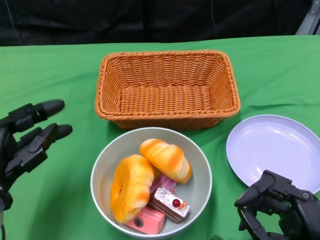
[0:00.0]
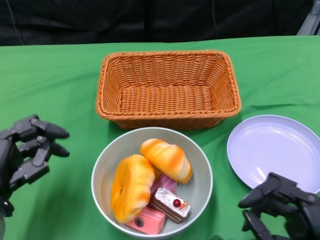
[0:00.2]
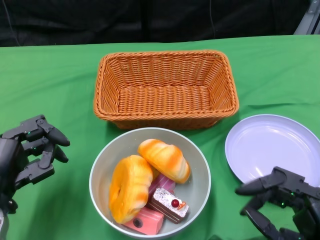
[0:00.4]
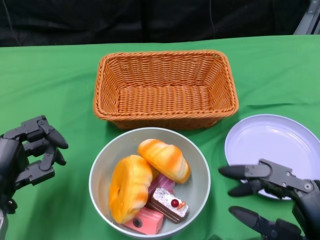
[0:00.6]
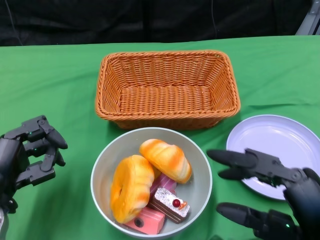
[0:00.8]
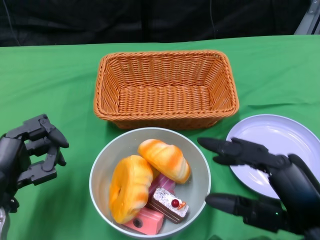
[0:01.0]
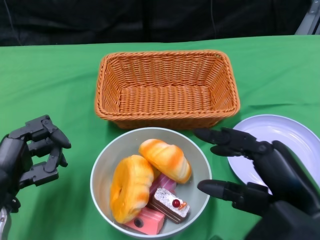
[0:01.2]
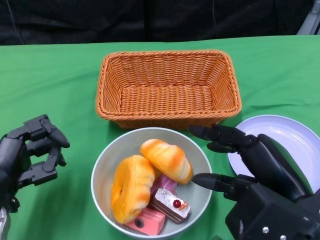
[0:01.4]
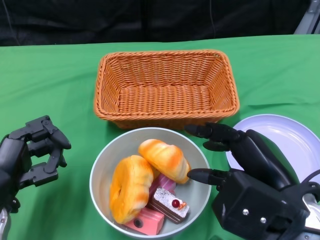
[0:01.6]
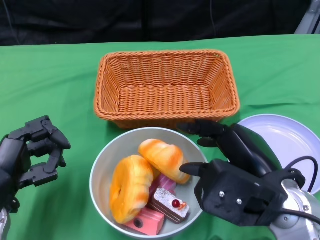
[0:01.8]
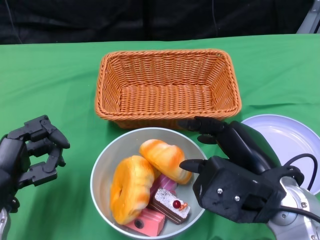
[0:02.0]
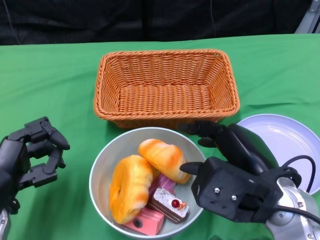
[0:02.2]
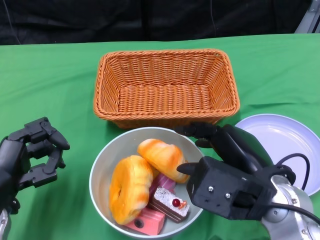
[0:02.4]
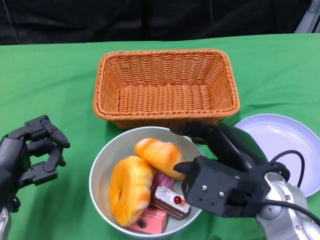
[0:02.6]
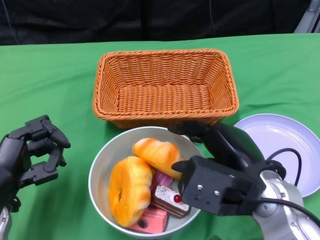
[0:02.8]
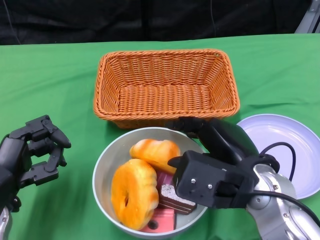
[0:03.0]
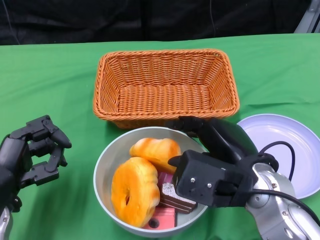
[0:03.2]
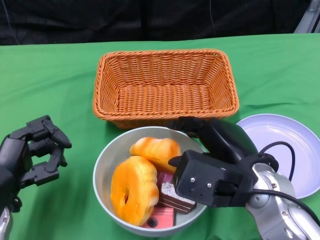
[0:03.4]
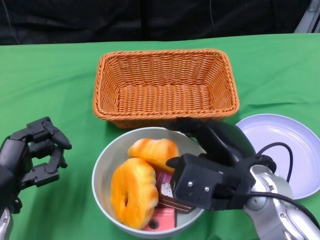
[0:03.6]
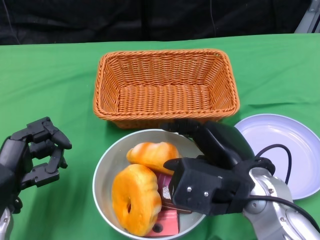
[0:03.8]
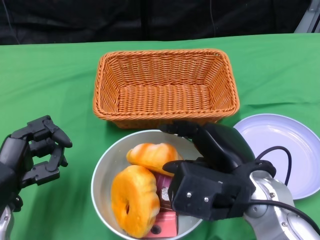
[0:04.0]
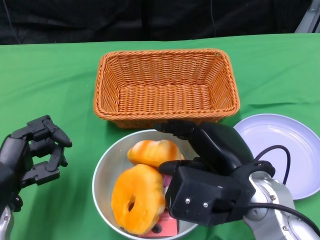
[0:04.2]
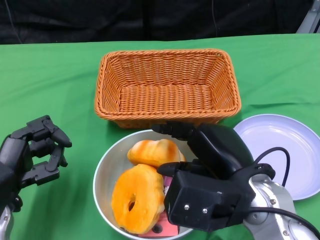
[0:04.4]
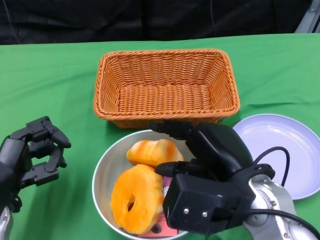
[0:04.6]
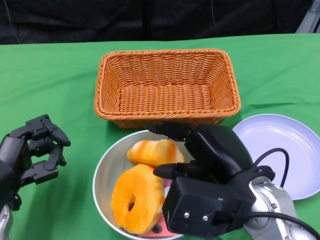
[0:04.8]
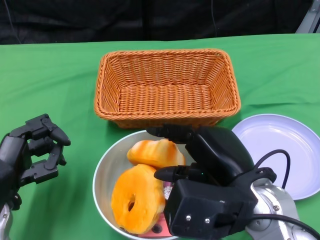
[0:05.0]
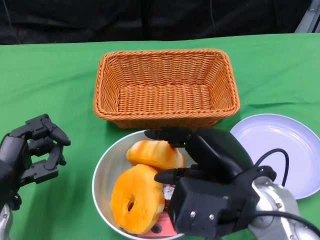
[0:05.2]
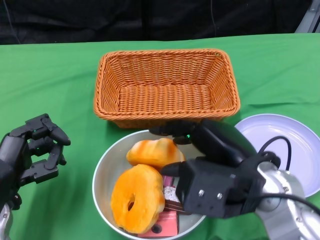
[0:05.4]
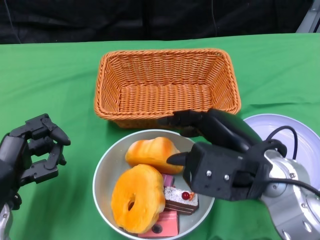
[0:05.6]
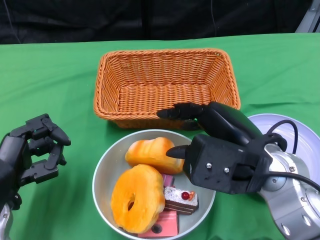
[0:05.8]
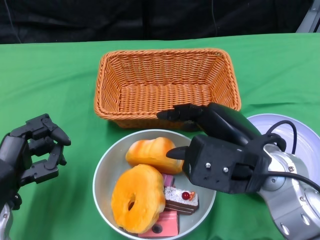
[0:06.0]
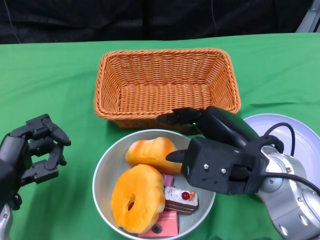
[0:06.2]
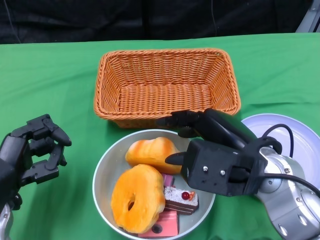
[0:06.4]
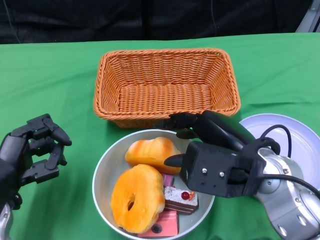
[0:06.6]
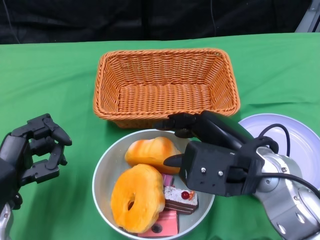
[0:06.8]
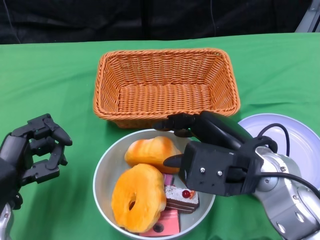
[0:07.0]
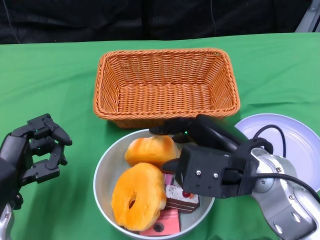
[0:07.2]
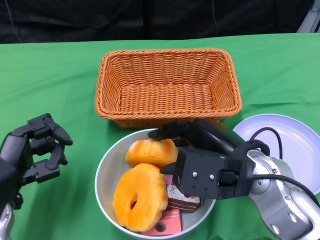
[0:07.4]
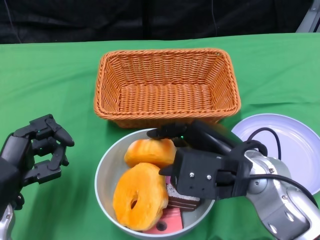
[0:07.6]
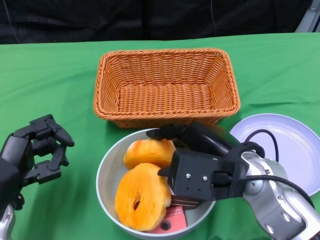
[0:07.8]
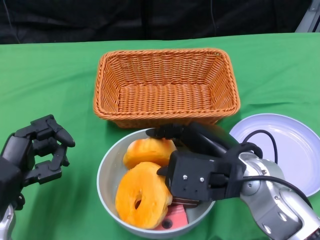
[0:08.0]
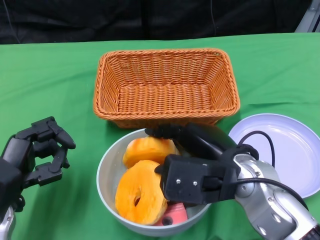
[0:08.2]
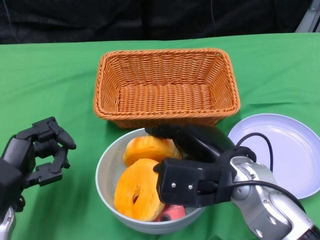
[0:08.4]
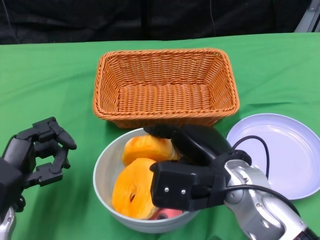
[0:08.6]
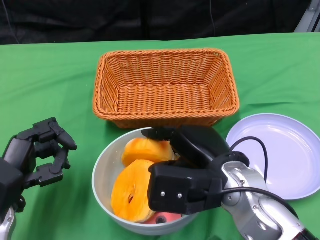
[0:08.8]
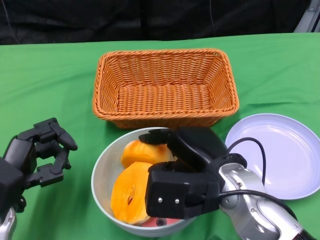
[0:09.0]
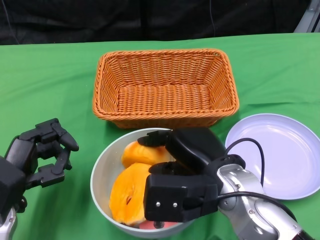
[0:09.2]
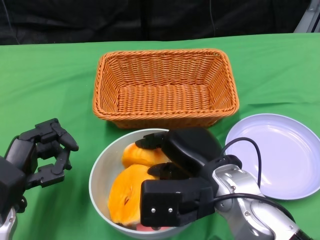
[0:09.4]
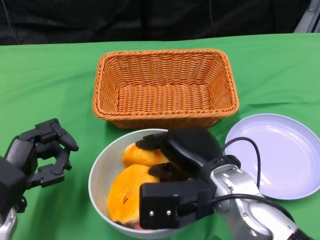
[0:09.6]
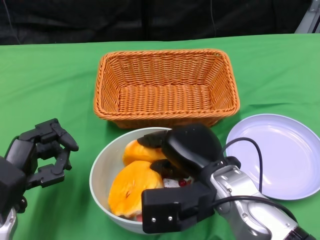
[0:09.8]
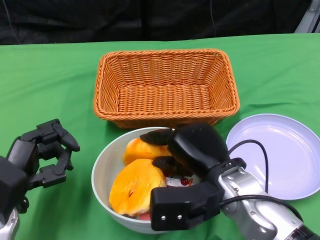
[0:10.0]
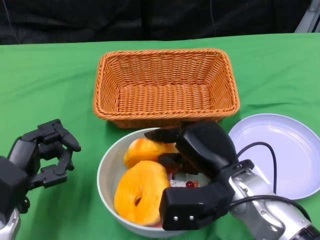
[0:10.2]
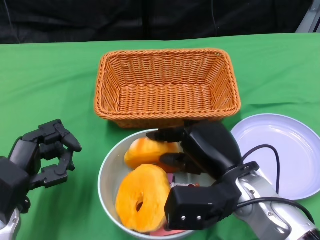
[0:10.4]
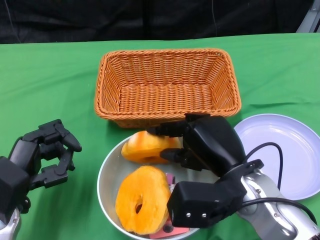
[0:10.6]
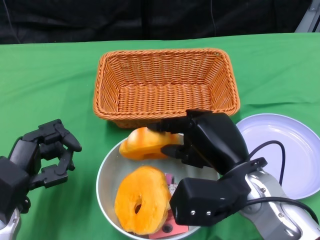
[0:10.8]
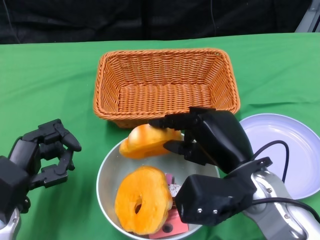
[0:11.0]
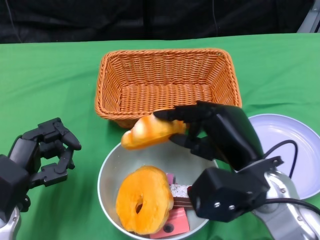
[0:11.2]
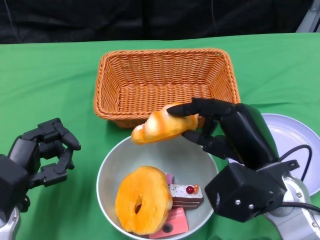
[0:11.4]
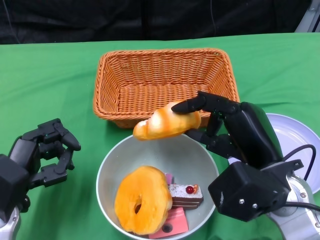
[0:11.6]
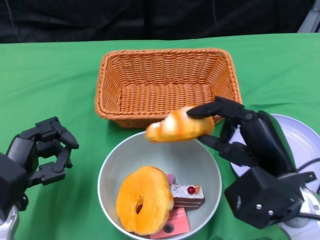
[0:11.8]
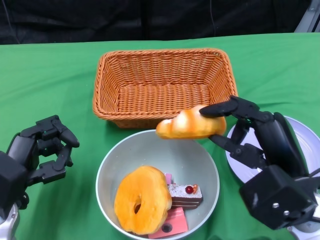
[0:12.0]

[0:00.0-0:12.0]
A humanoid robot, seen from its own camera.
0:00.0 to 0:01.6: The right hand goes about 10 cm upward and forward.
0:01.6 to 0:03.0: The right hand ends up some 5 cm from where it was.
0:03.0 to 0:04.4: There are only small adjustments of the hands.
0:06.0 to 0:07.6: The hands move only a little.
0:10.4 to 0:12.0: The right hand is displaced to the right by about 5 cm.

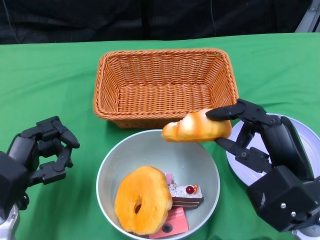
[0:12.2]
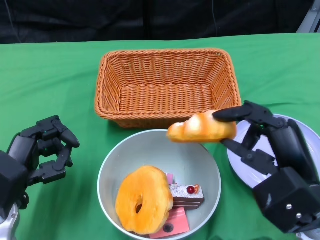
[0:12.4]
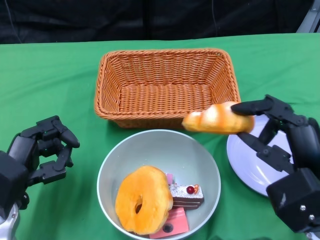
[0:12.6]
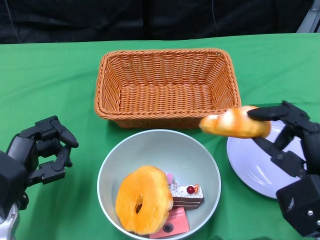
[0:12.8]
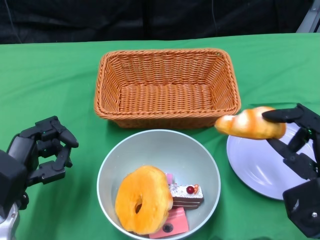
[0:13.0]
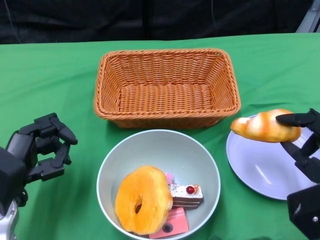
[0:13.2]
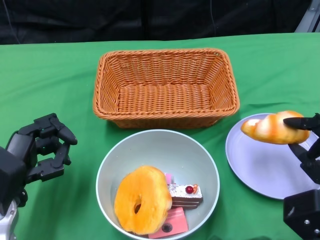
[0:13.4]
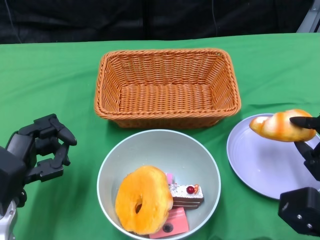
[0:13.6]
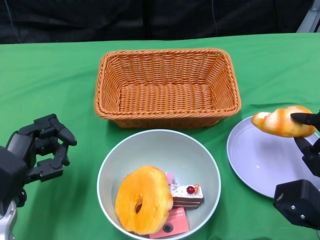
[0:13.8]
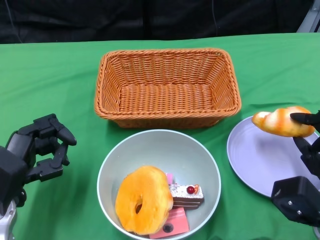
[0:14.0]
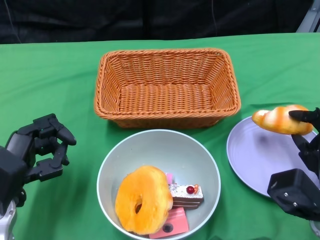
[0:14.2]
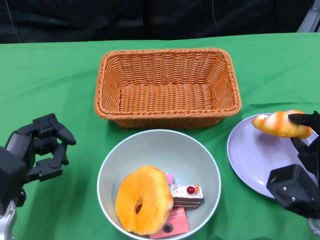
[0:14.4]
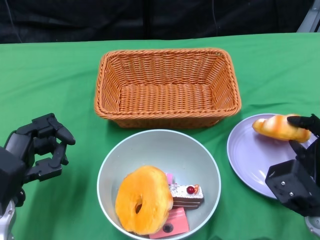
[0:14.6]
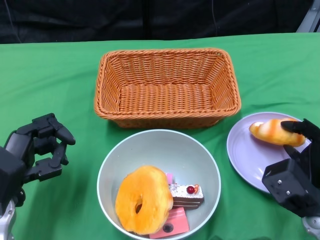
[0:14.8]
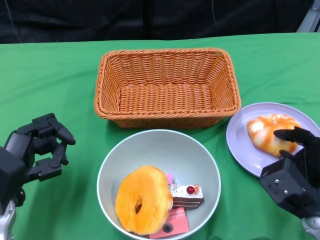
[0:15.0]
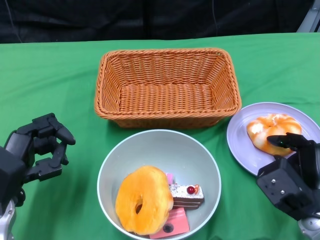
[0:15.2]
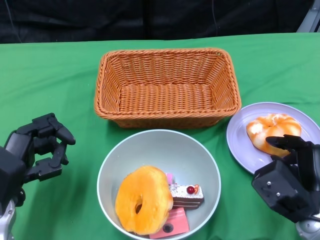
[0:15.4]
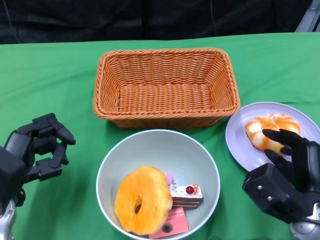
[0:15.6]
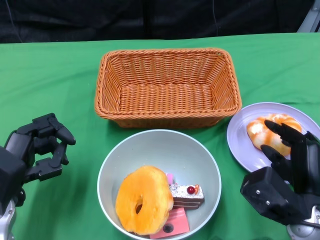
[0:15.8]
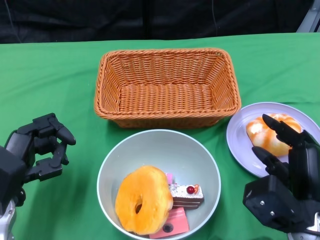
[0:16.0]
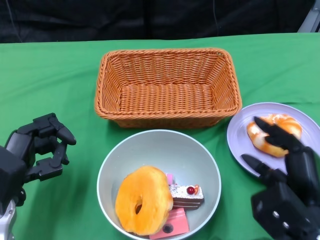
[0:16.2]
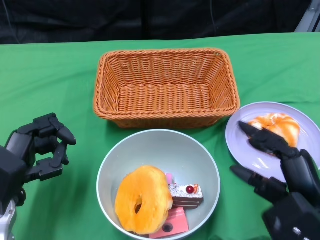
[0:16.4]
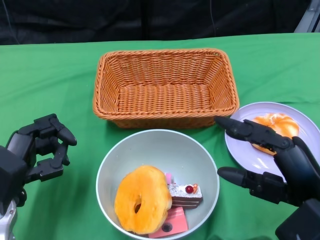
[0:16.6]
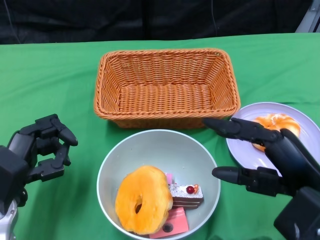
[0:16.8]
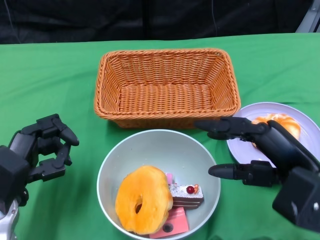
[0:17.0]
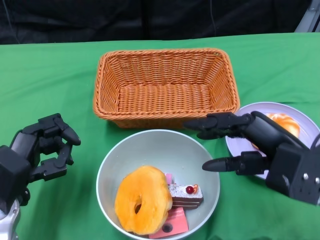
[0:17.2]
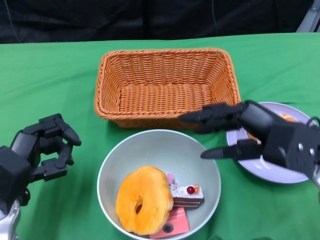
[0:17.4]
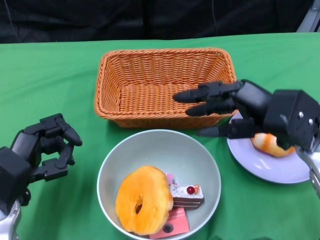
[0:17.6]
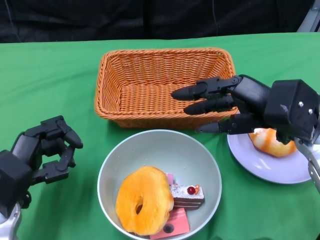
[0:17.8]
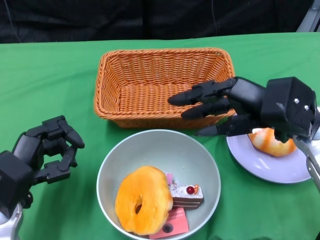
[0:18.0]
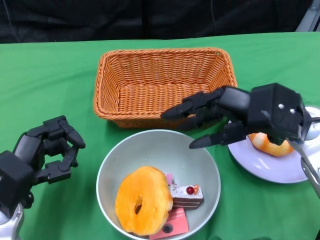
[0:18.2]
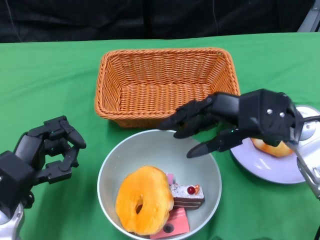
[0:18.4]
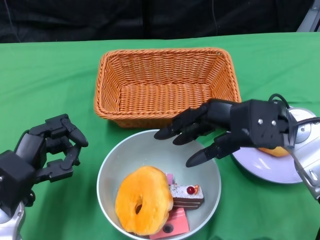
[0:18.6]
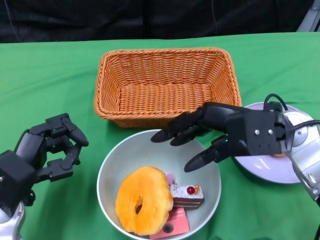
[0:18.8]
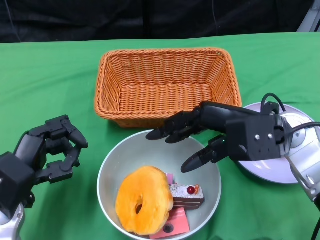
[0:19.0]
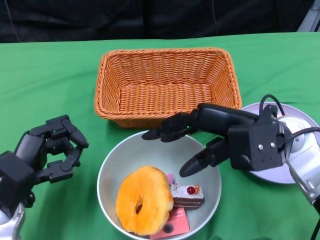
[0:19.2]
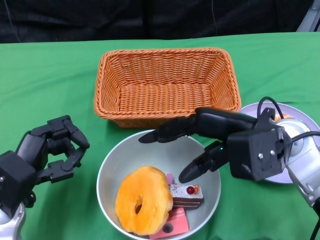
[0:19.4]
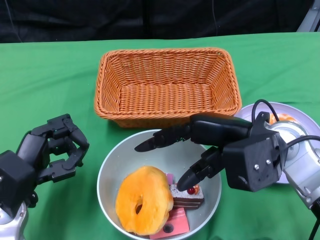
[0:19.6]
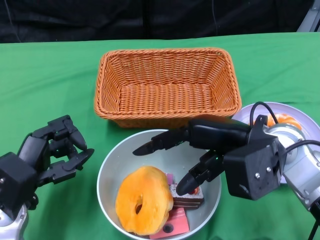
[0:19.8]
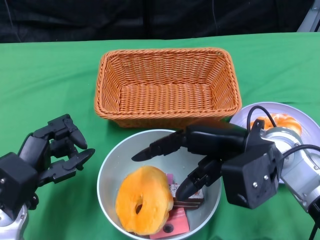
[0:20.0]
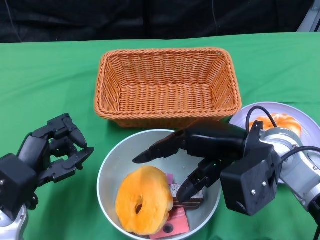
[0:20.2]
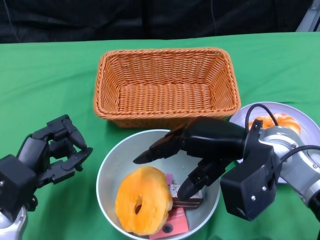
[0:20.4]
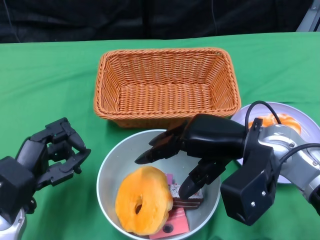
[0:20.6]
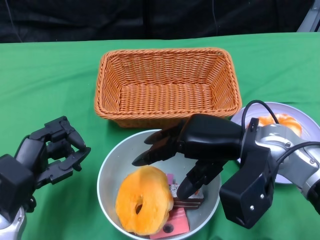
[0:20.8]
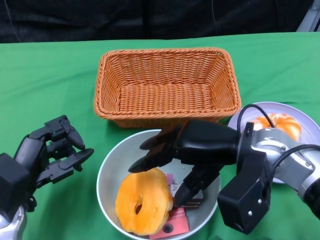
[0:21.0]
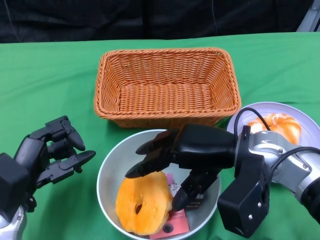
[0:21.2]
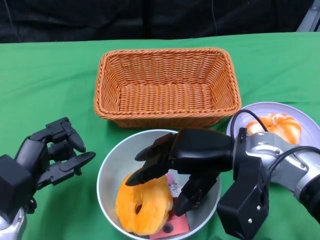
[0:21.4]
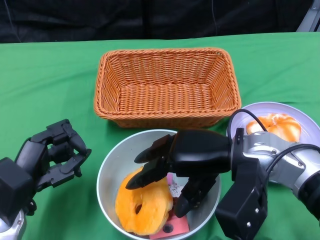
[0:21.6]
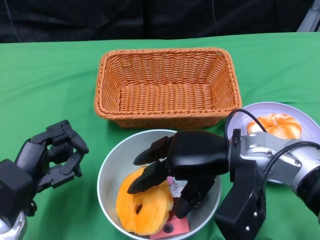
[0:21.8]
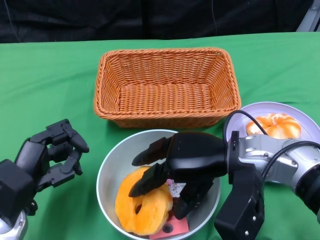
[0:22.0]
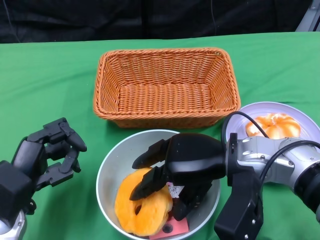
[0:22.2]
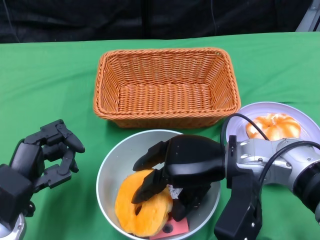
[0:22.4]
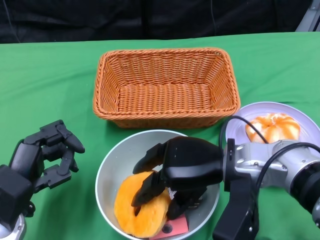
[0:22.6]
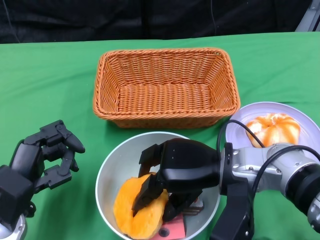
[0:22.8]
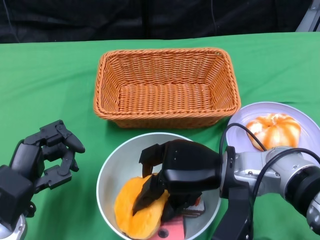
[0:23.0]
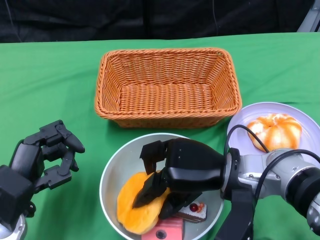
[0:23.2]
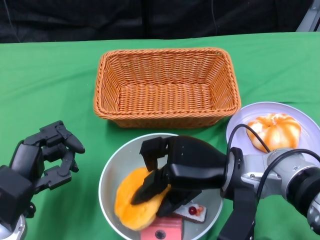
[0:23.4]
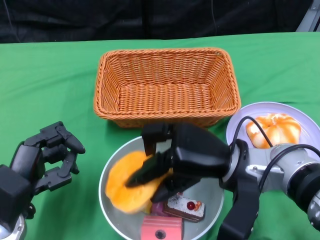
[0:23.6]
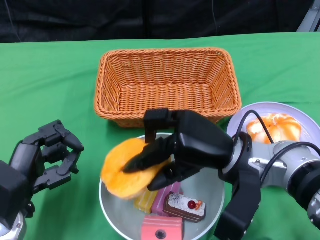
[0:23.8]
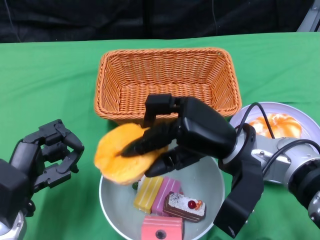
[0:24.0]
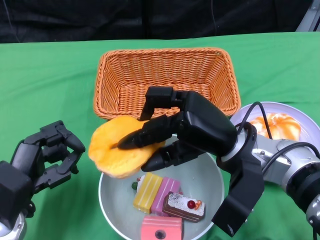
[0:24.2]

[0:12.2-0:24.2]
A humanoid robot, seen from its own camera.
0:12.2 to 0:13.8: The right hand travels downward and to the right by some 10 cm.
0:15.2 to 0:16.6: The right hand is displaced upward and backward by about 15 cm.
0:16.6 to 0:18.2: The right hand heads forward, covering approximately 15 cm.
0:19.8 to 0:21.2: There are only small adjustments of the hands.
0:21.2 to 0:22.6: The hands move only a little.
